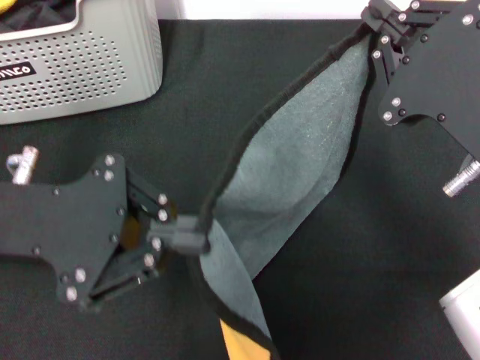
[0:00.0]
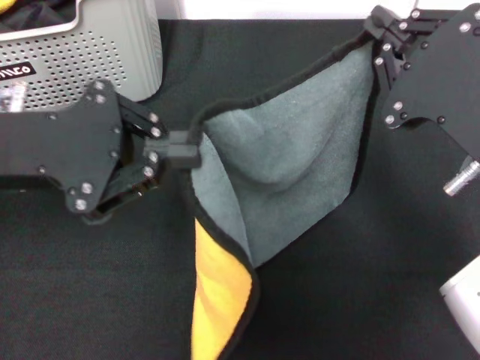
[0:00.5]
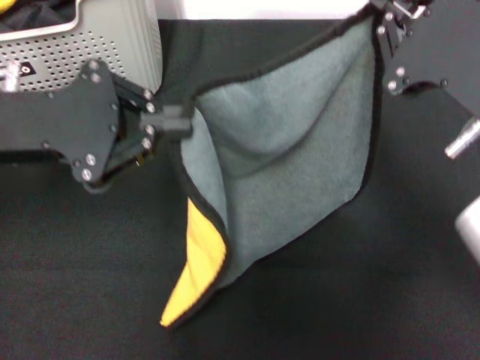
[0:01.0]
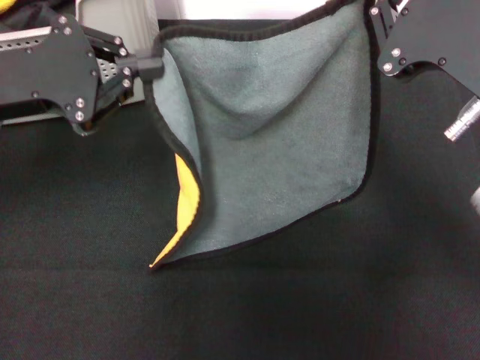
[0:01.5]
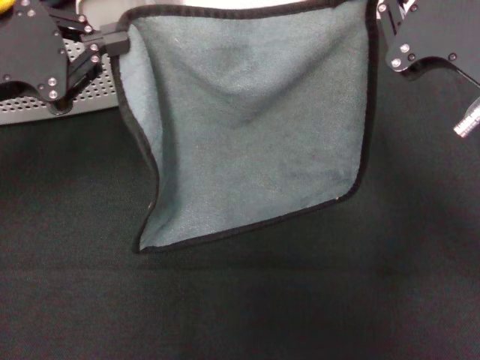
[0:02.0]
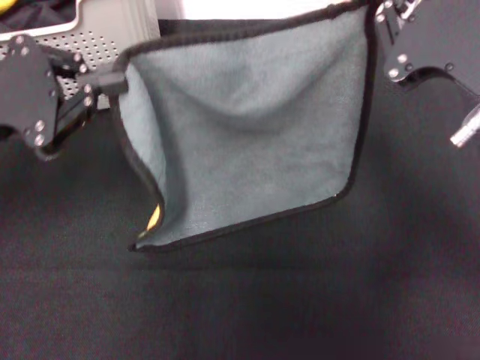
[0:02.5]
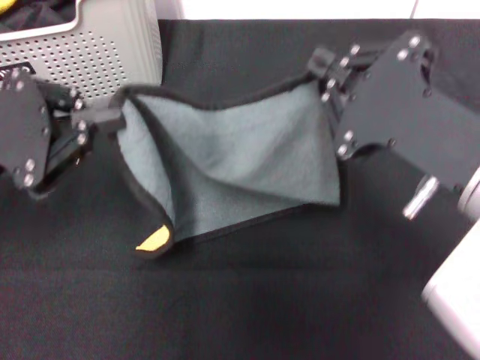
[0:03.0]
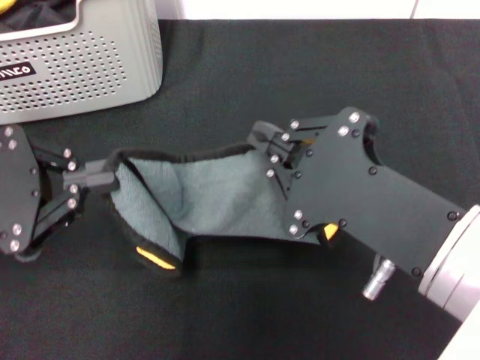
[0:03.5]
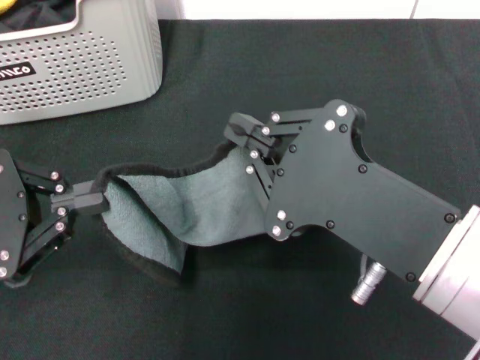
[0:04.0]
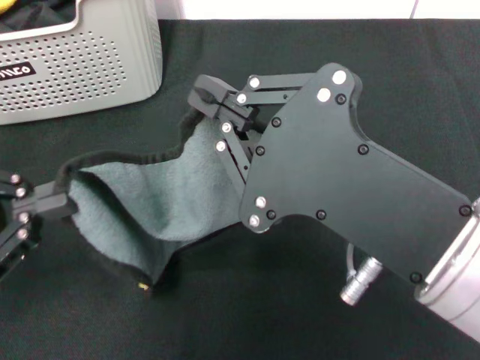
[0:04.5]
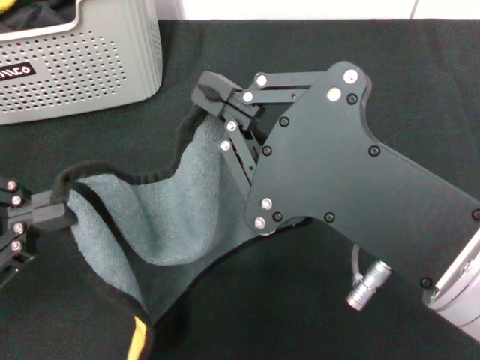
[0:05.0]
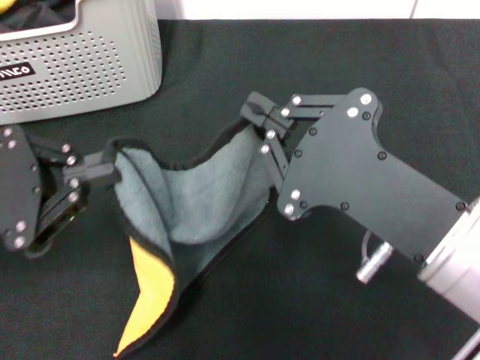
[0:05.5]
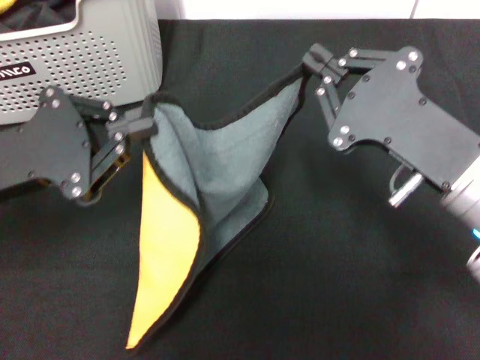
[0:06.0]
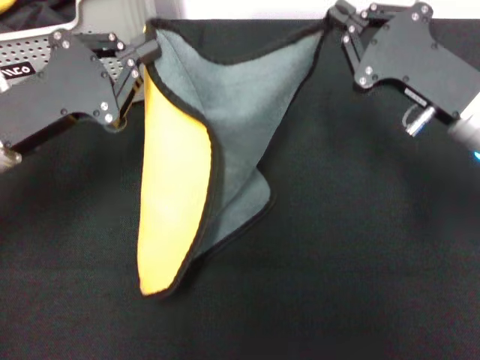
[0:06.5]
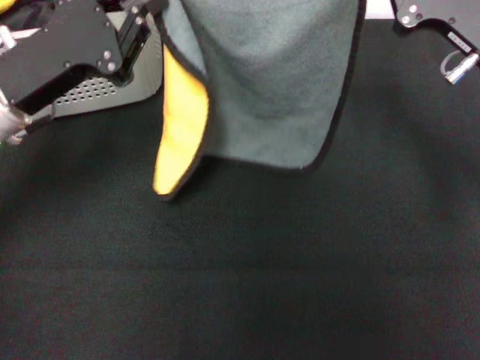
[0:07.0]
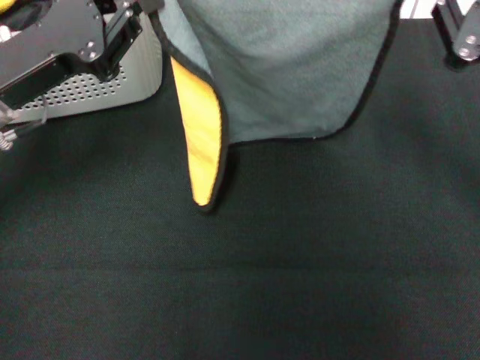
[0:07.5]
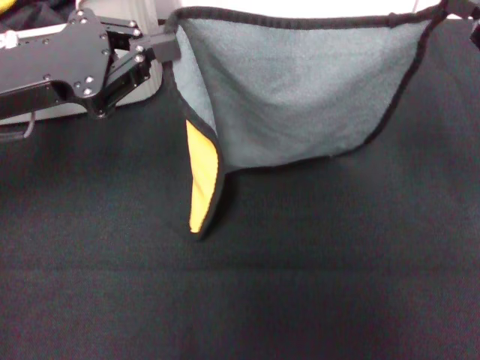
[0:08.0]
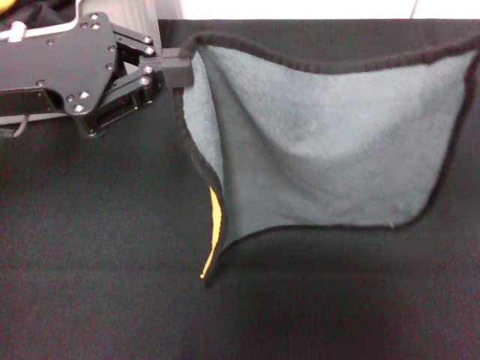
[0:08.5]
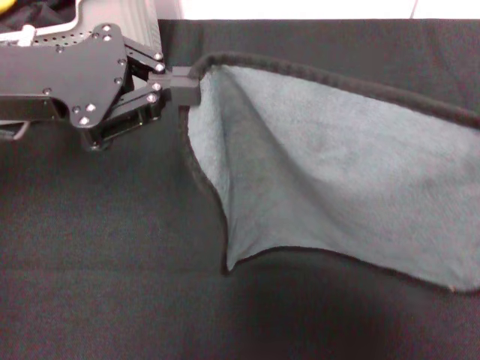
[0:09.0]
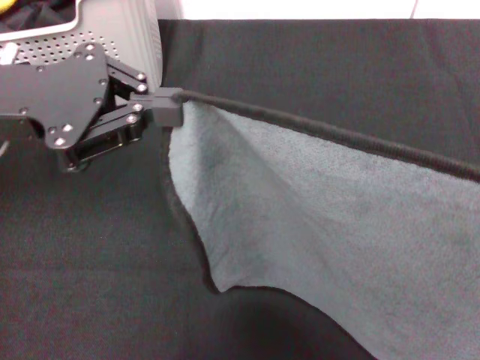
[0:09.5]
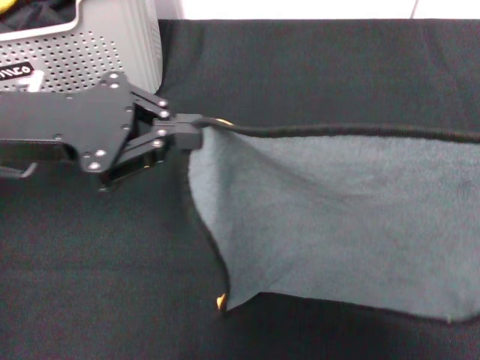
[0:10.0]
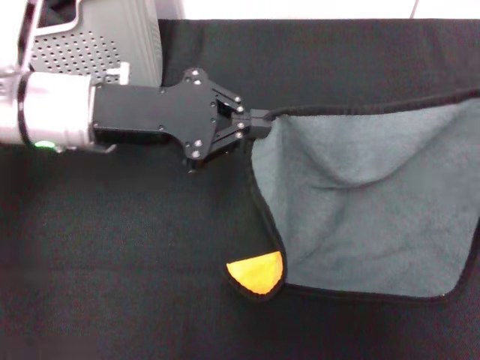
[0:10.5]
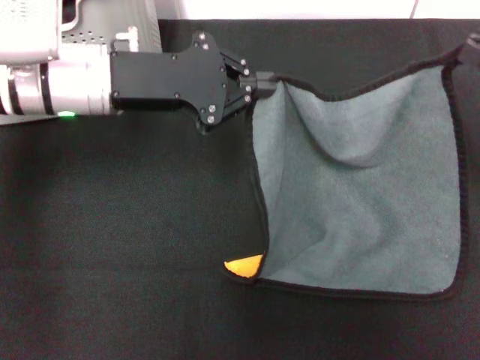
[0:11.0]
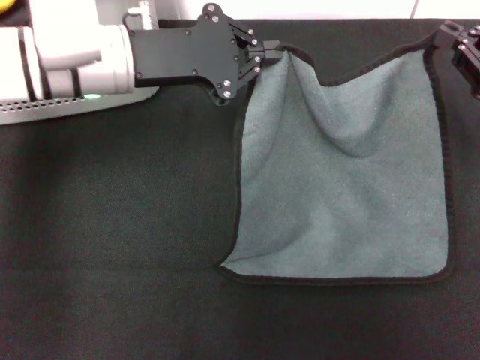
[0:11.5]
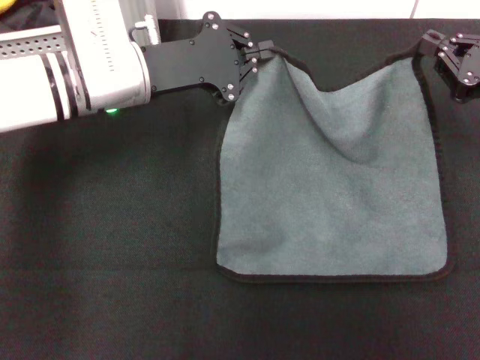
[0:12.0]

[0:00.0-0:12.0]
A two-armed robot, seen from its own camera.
Task of the whole recording: pick up the towel from the storage box and lay it flat on the black tablecloth.
0:00.0 to 0:02.0: The left gripper moves forward and to the left, about 10 cm.
0:02.0 to 0:04.0: The left gripper goes about 10 cm backward. Meanwhile the right gripper is displaced backward and to the left by about 10 cm.
0:04.0 to 0:06.0: The left gripper moves forward, approximately 5 cm; the right gripper heads forward and downward, covering roughly 10 cm.
0:06.0 to 0:08.0: The right gripper is displaced to the right and upward by about 15 cm, while the left gripper travels forward by some 5 cm.
0:08.0 to 0:10.0: The right gripper heads to the right and backward, covering approximately 10 cm.
0:10.0 to 0:12.0: The left gripper is displaced forward, to the right and downward by roughly 15 cm. Meanwhile the right gripper heads forward, to the left and downward, covering about 15 cm.

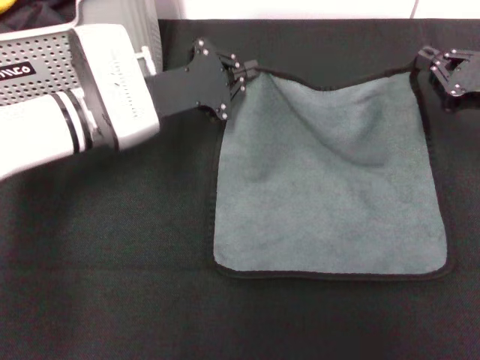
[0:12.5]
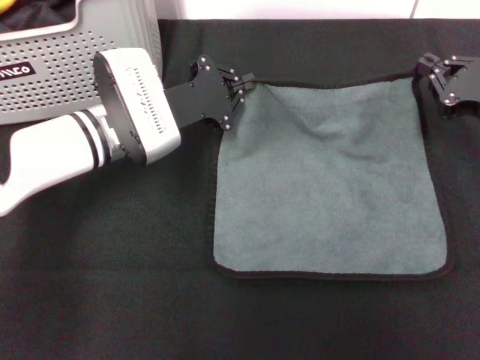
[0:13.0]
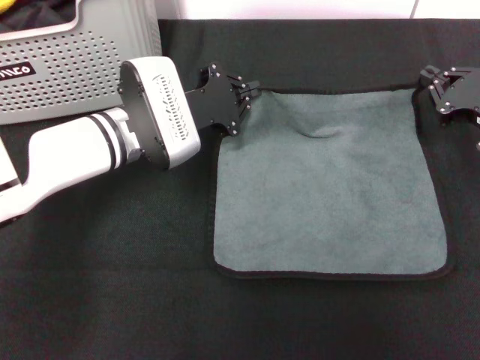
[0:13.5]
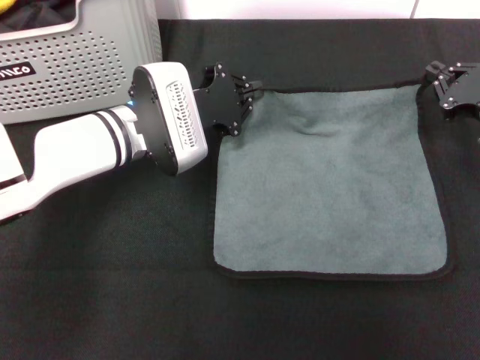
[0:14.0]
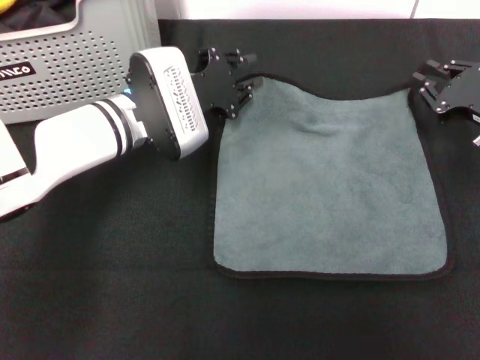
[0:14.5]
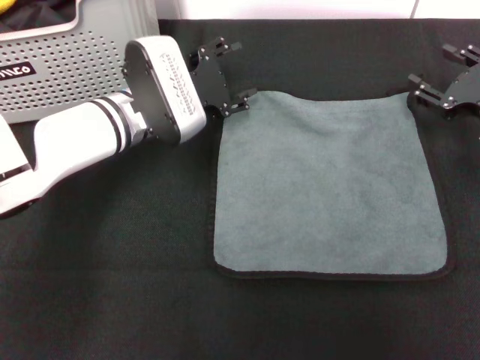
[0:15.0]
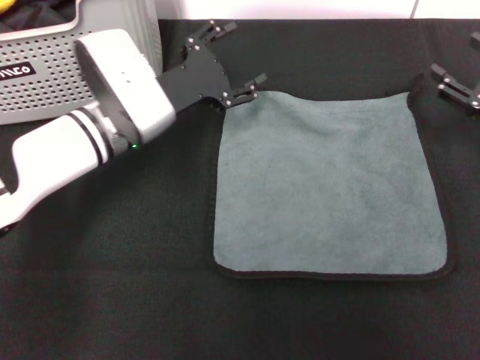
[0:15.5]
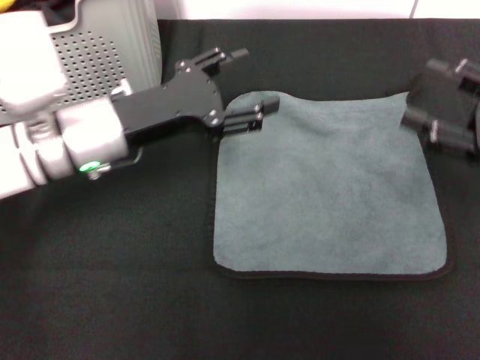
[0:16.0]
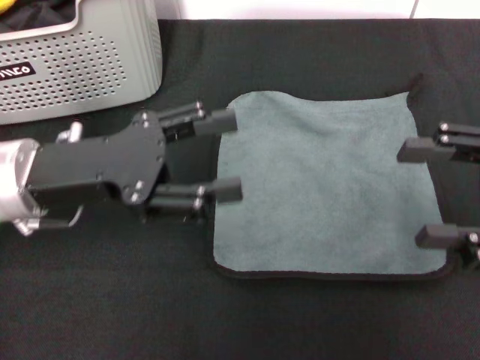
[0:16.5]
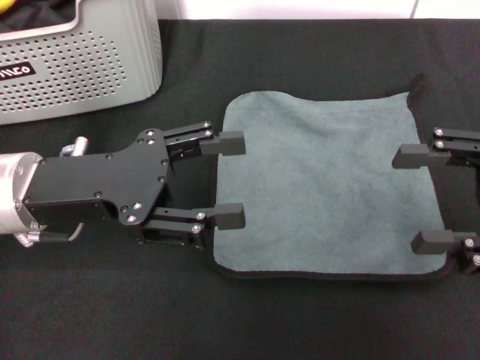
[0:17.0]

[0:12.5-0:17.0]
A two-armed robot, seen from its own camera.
Task of the whole recording: pick up the towel from the storage box and lay it flat on the black tablecloth.
Step, 0:12.5 to 0:14.5: Spread the towel flat with the right gripper.
0:14.5 to 0:17.0: The left gripper is displaced backward, to the left and upward by approximately 15 cm, and opens up. Meanwhile the right gripper travels backward and upward by roughly 15 cm, and opens.
